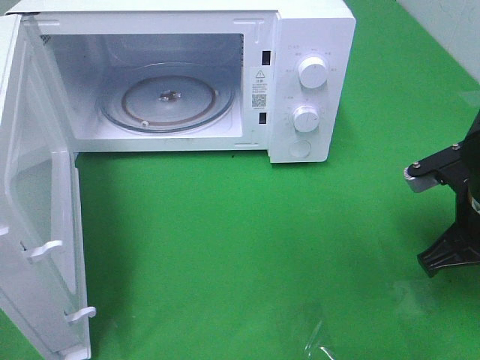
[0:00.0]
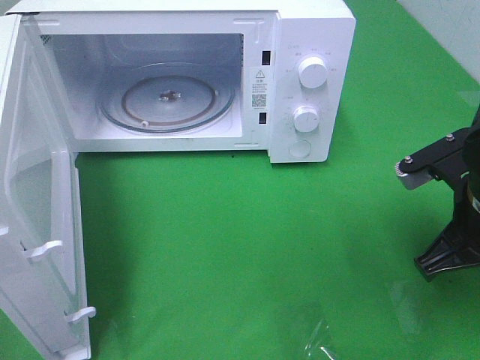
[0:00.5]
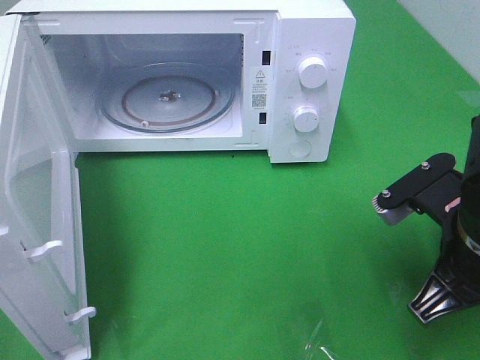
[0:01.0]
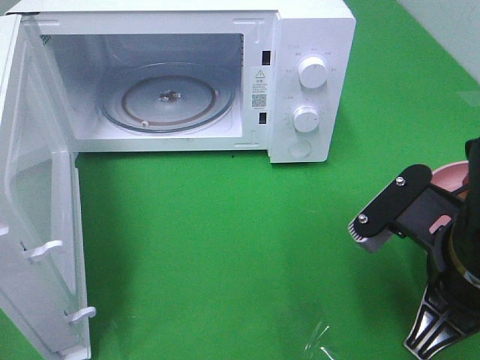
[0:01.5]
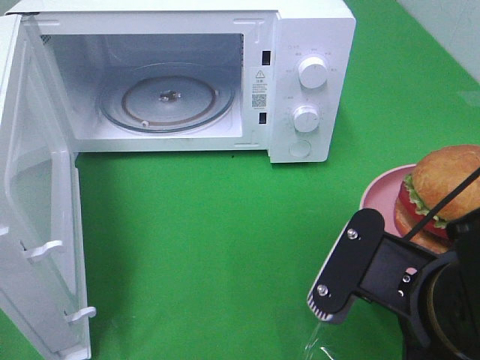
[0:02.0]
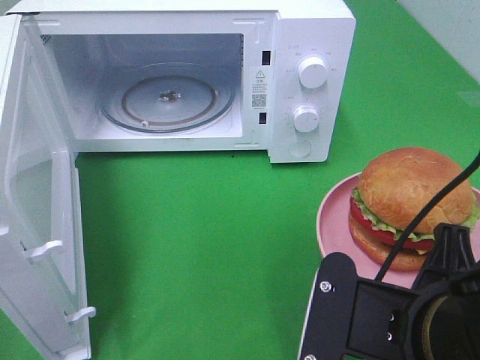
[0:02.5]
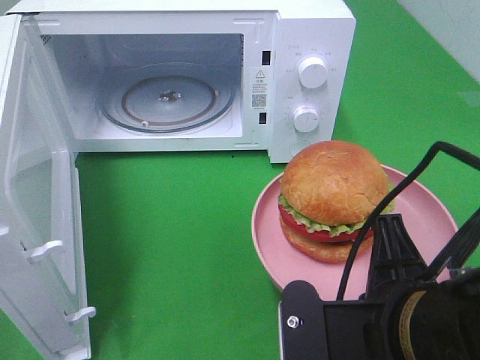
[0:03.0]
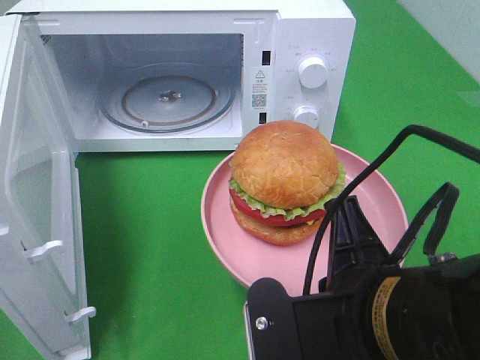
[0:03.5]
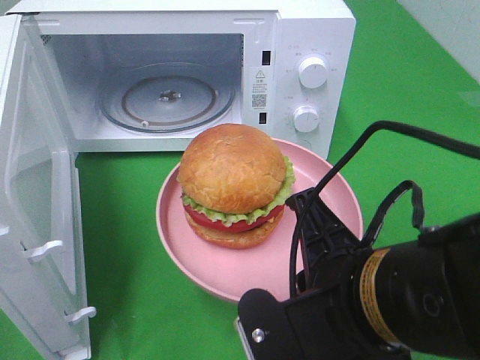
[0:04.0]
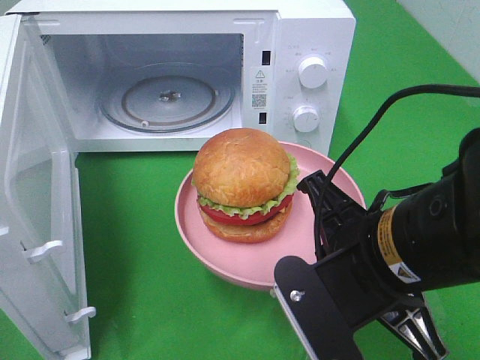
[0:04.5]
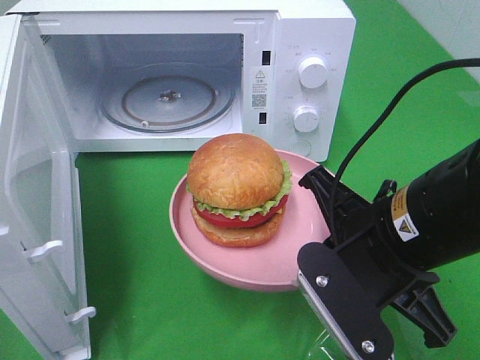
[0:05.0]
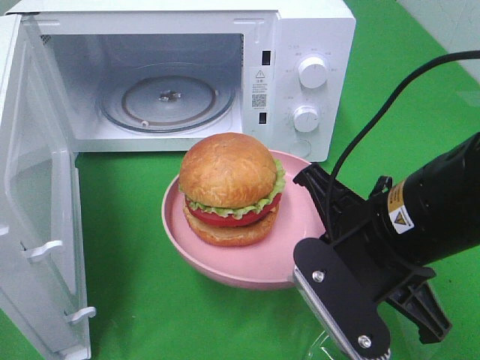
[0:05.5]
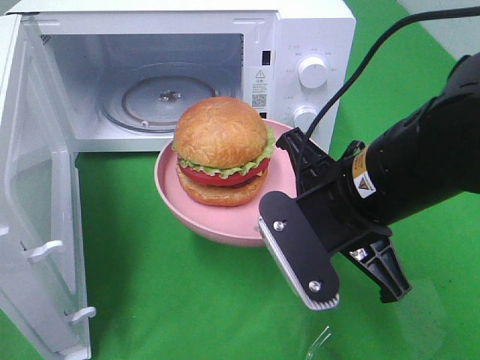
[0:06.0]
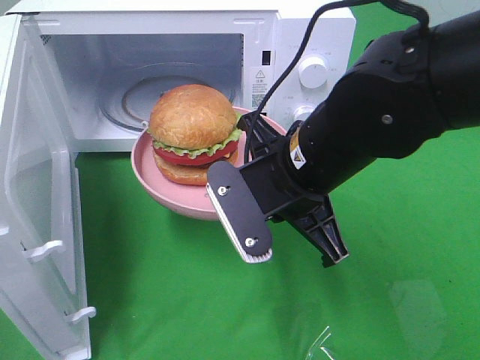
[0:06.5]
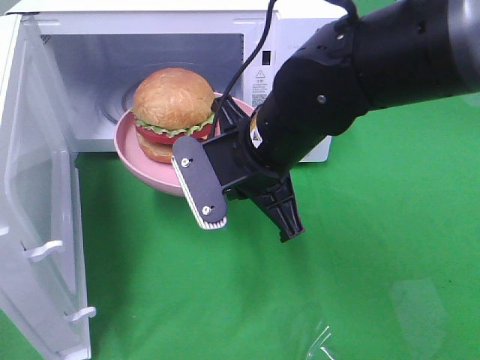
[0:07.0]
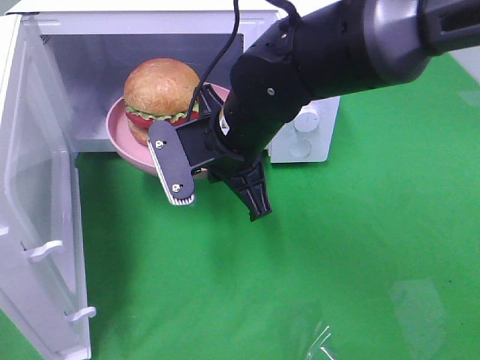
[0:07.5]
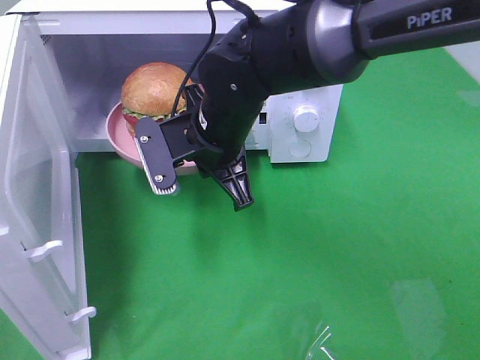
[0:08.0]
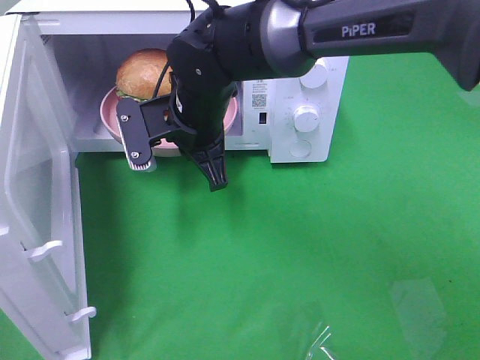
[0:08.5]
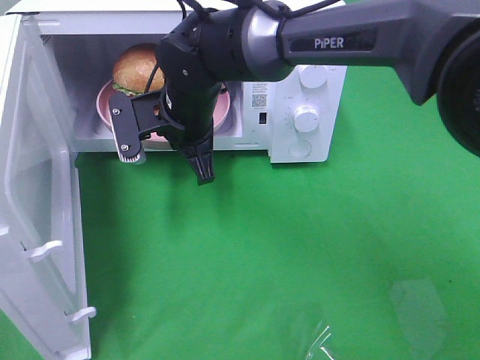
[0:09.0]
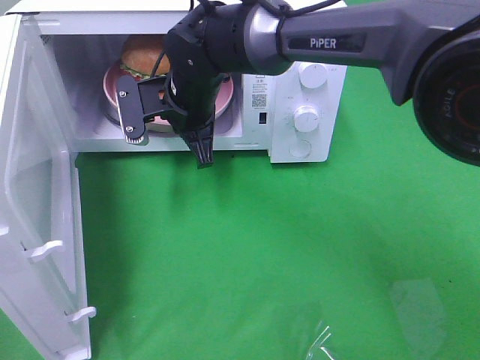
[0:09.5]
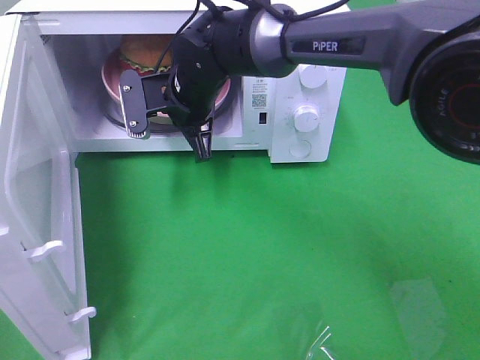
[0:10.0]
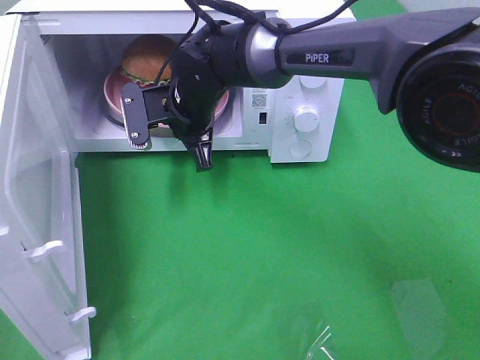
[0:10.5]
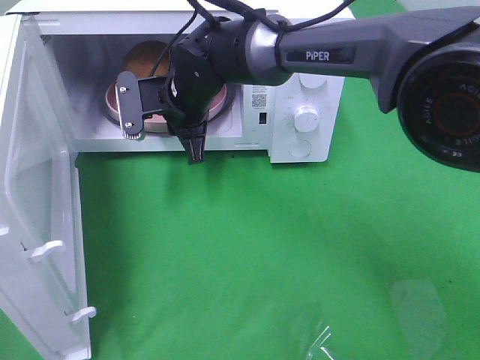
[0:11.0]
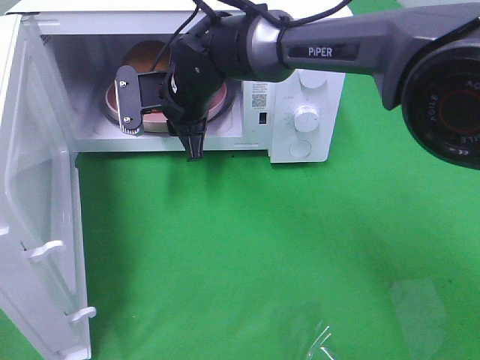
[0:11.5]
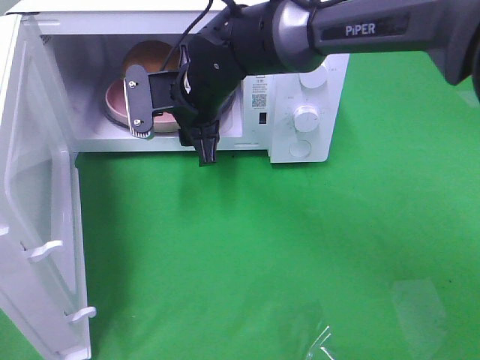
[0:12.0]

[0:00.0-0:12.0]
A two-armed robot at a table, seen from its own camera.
Task of the whole recording: Heat the burger.
Step, 0:00.0 to 0:11.0: Right hand: place the plate in the microwave.
0:00.0 to 0:02.0: The right gripper heads backward and to the left, covering approximately 15 cm.
0:04.0 to 0:06.0: The right gripper moves forward, some 10 cm.
0:06.0 to 0:08.0: The right gripper moves forward and to the left, roughly 15 cm.
0:08.0 to 0:10.0: The right gripper shifts roughly 10 cm forward.
0:10.0 to 0:12.0: The right gripper opens its fingers.

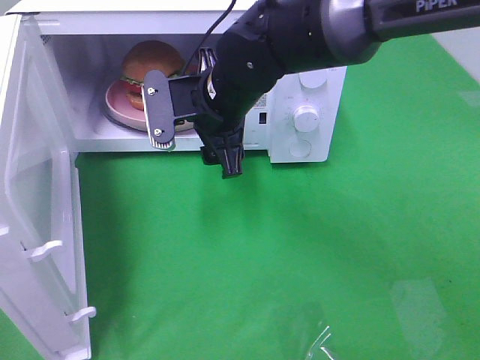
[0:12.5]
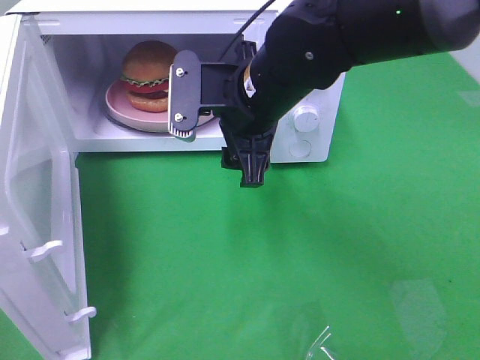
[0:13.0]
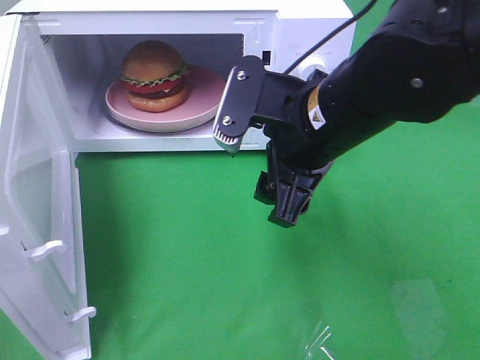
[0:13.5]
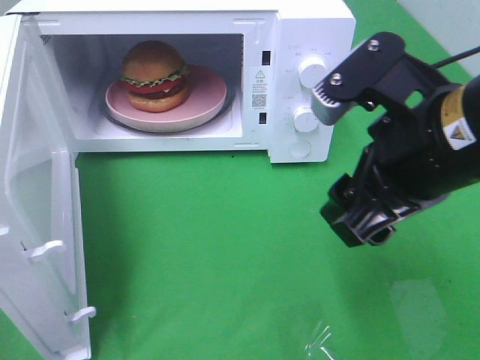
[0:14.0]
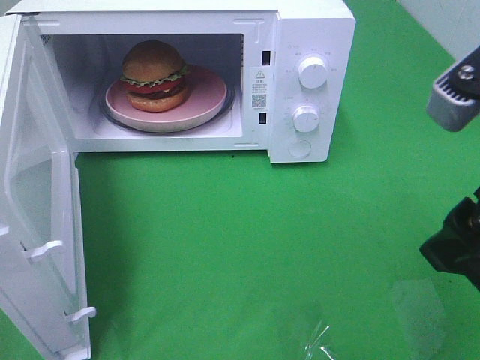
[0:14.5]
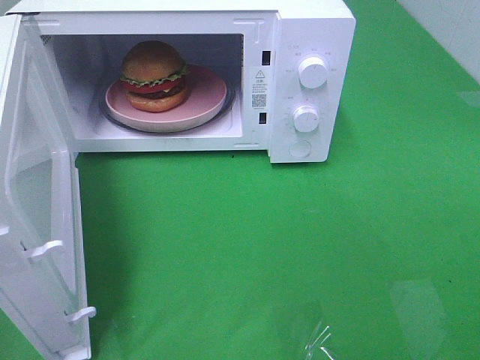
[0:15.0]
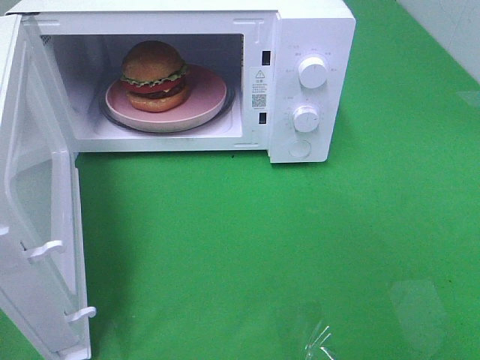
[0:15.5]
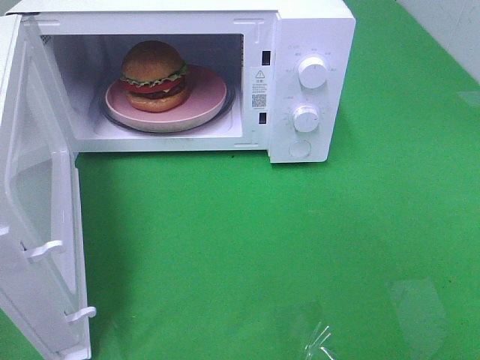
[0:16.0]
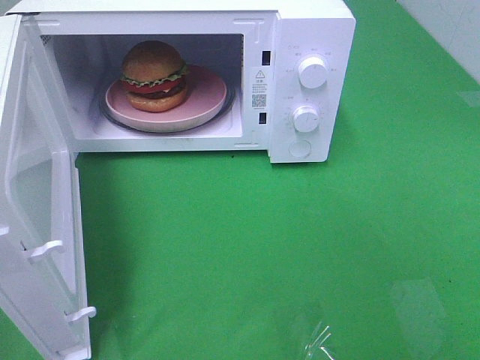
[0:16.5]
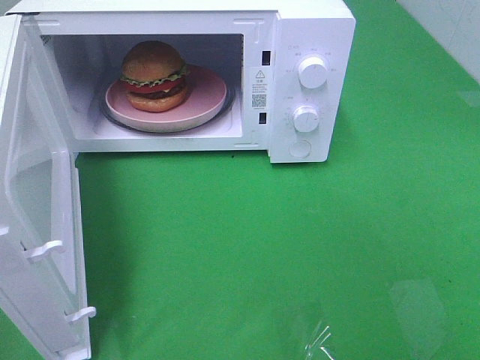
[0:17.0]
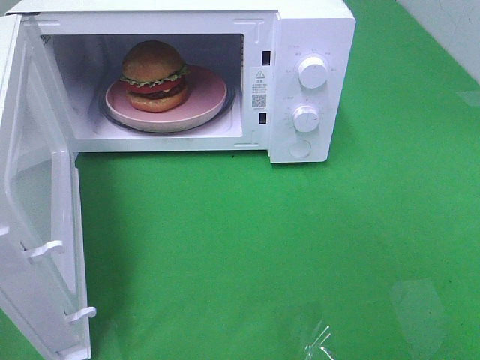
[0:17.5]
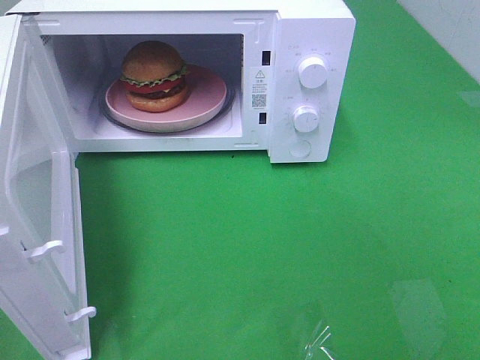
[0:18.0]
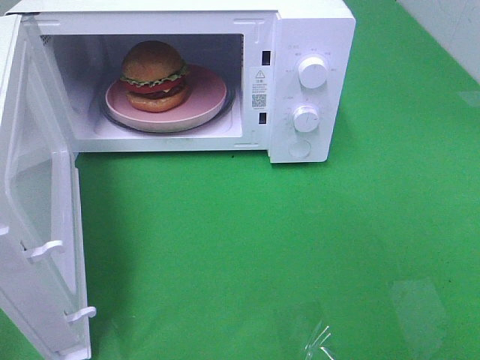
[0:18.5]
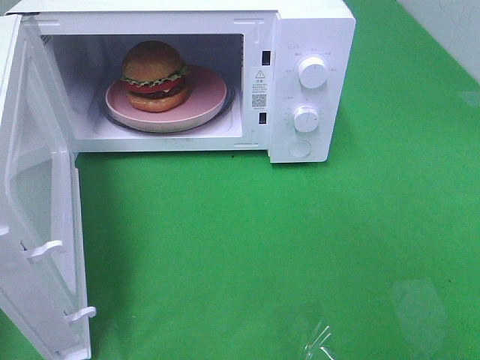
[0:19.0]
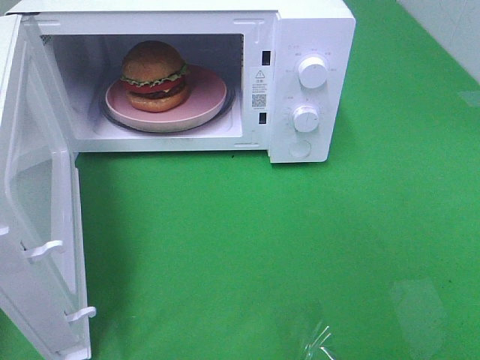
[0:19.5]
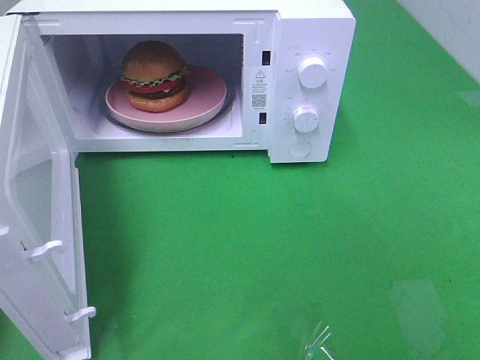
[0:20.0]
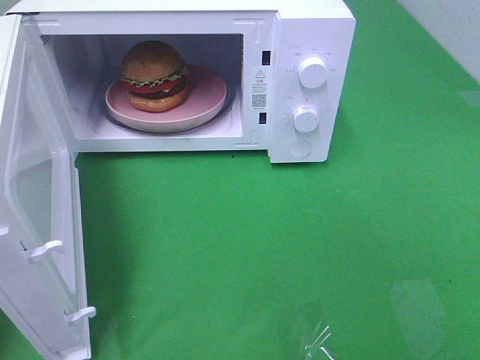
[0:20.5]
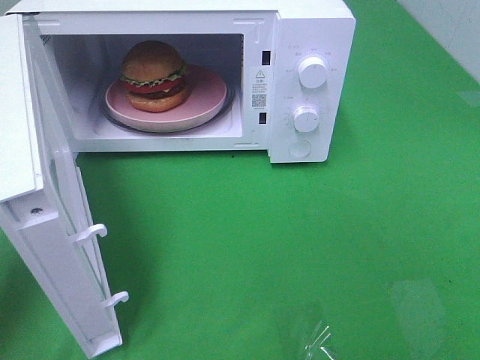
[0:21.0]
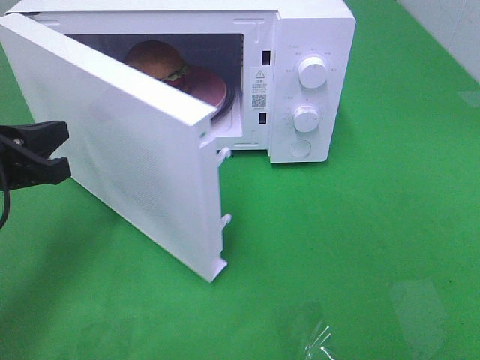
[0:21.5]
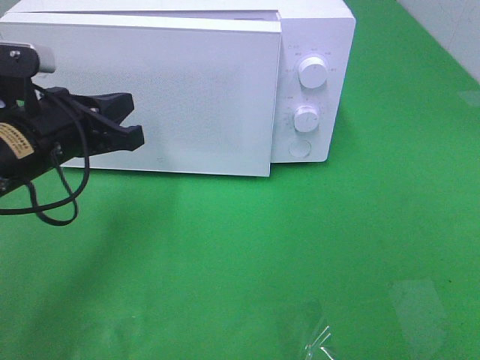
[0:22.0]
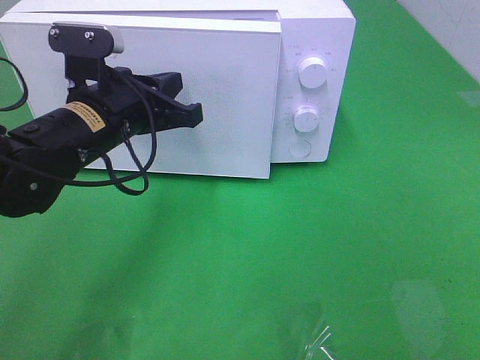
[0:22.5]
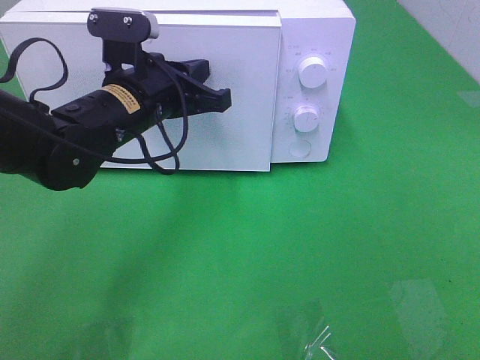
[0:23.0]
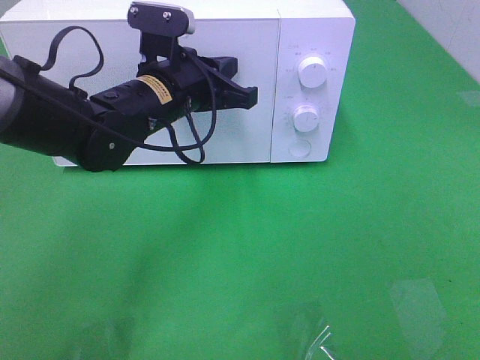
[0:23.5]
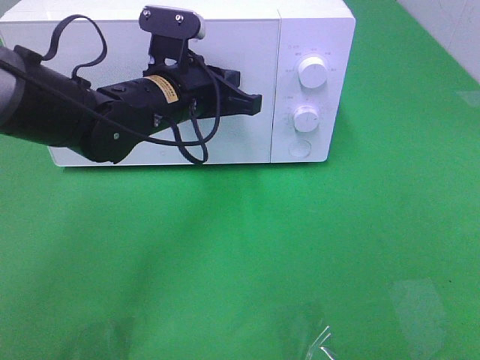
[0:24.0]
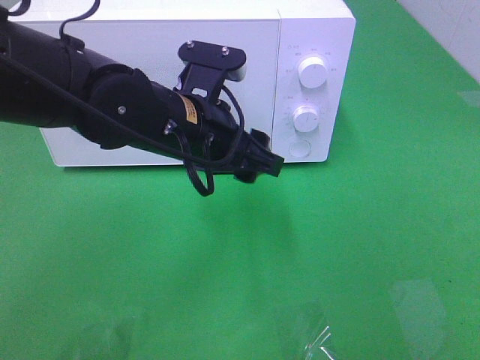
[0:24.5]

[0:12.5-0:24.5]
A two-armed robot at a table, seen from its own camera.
Task of the whole recording: Heat the burger.
Step, 0:12.5 to 0:24.0: Left hand: close the microwave door.
0:12.5 to 0:14.5: The right gripper moves backward, to the right and upward, approximately 30 cm.
0:14.5 to 0:16.5: The right gripper moves backward and to the right, approximately 15 cm.
0:20.5 to 0:22.5: The left gripper heads to the right and forward, covering some 20 cm.
0:22.5 to 0:24.5: The left gripper goes roughly 10 cm to the right, and opens.

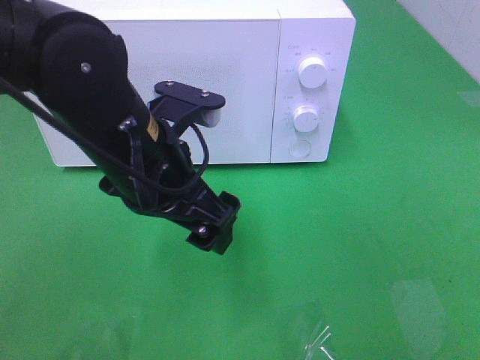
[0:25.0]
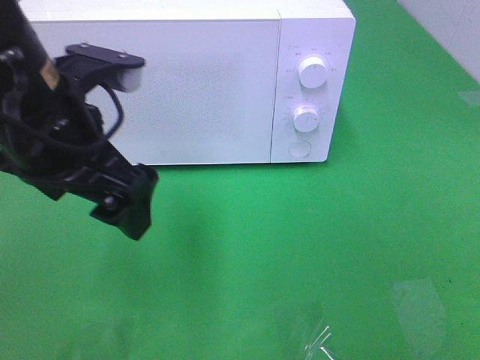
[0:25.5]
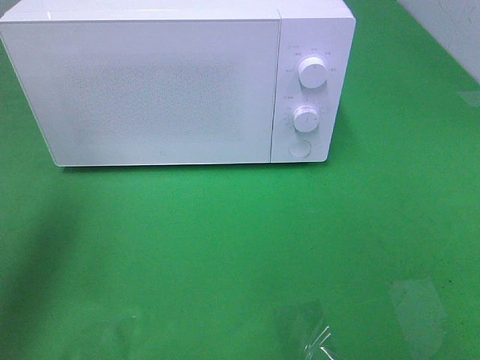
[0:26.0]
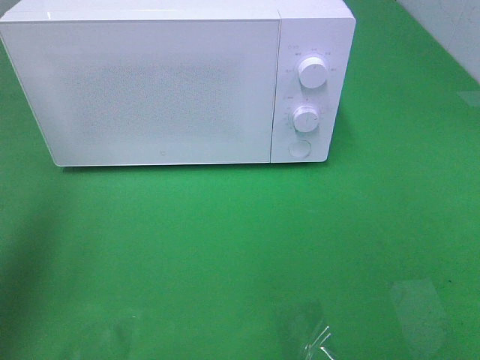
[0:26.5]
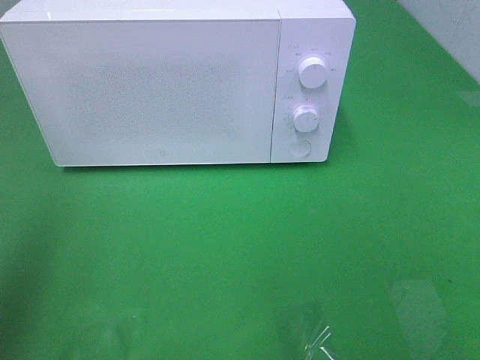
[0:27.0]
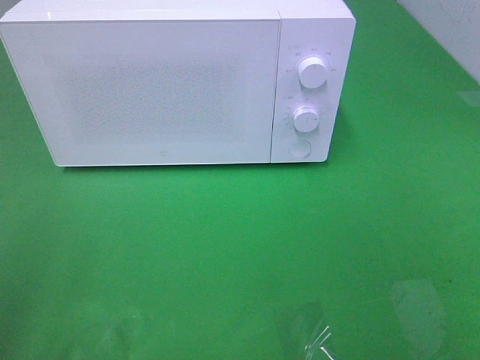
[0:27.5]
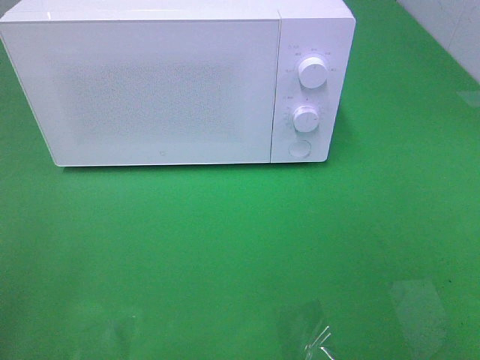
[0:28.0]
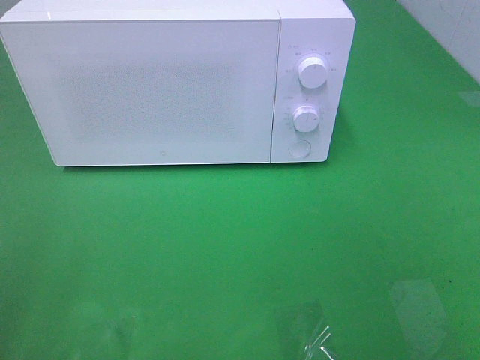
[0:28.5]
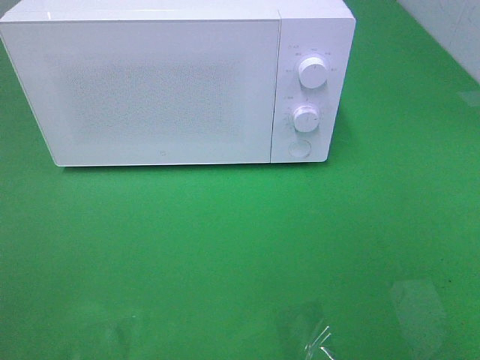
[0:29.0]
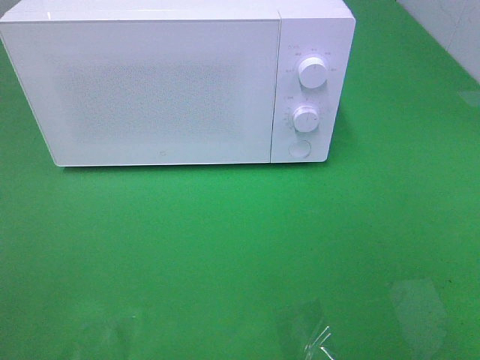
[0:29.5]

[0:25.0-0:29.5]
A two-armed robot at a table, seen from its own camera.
Task of the whole recording: Heat the burger.
0:25.0 to 0:27.0: The left gripper travels to the left, upward and backward by roughly 30 cm.
0:27.0 to 0:29.5: The left gripper shifts about 15 cm backward and downward.
